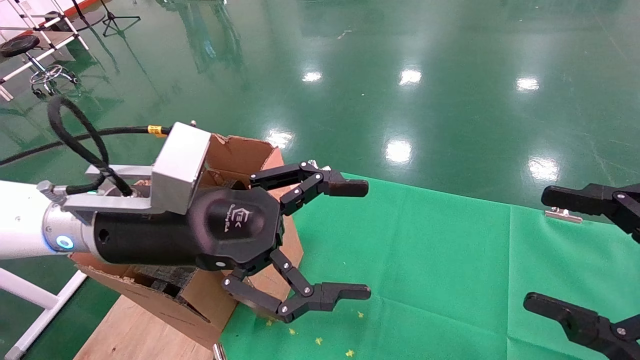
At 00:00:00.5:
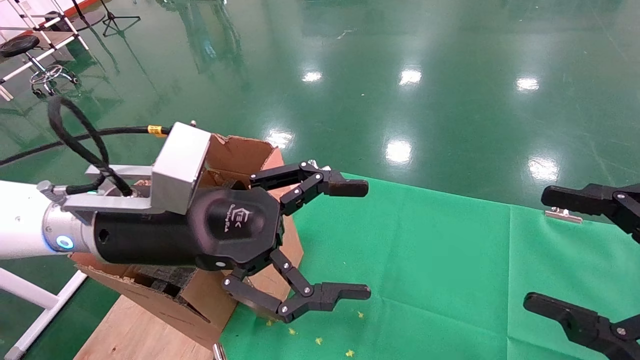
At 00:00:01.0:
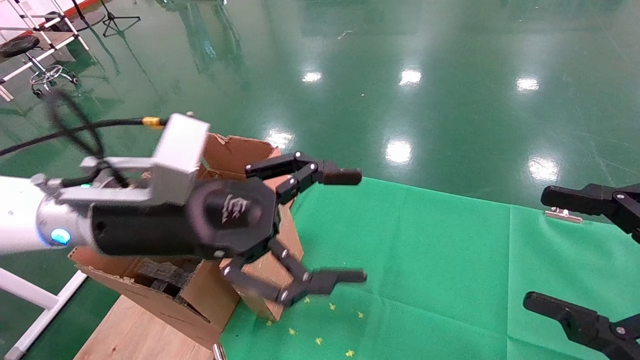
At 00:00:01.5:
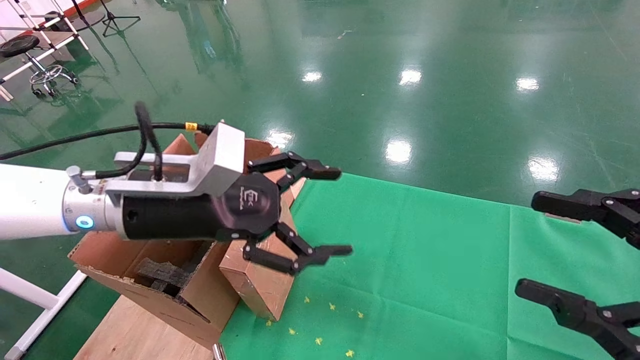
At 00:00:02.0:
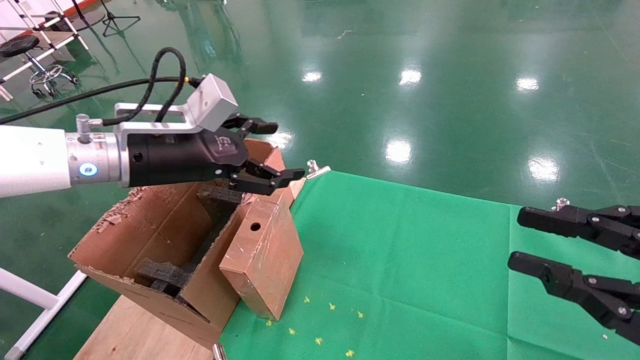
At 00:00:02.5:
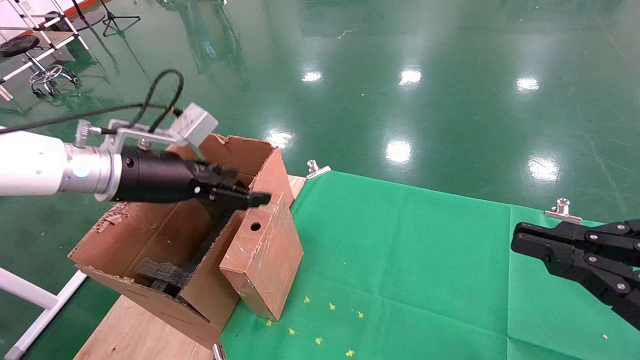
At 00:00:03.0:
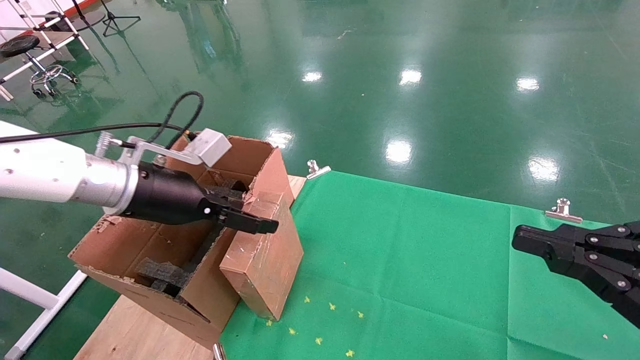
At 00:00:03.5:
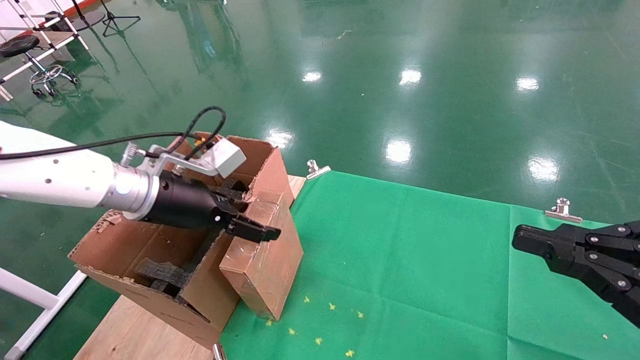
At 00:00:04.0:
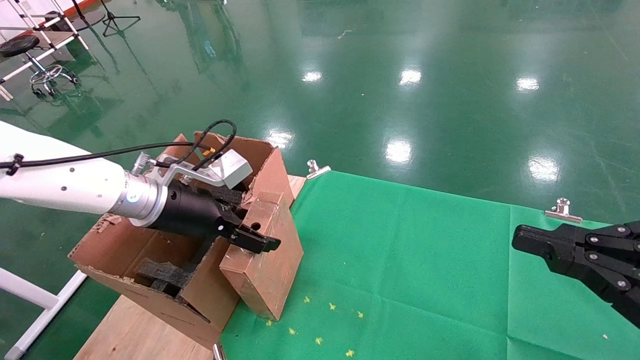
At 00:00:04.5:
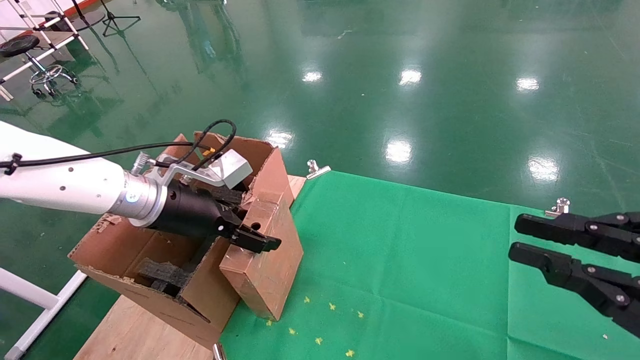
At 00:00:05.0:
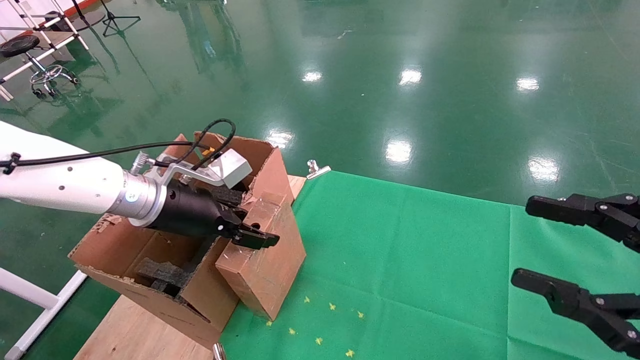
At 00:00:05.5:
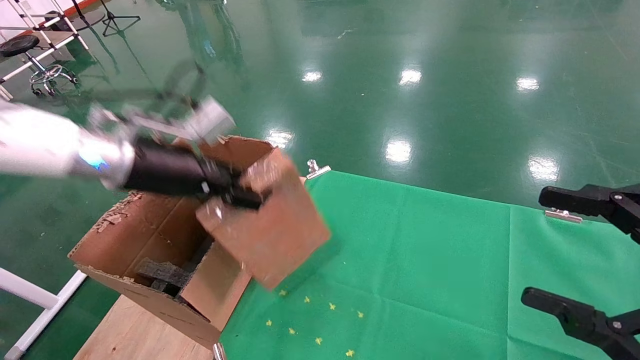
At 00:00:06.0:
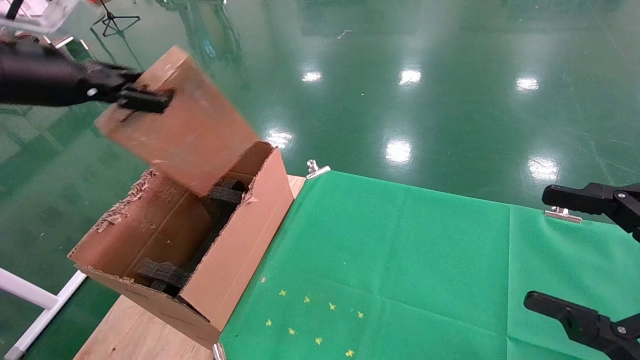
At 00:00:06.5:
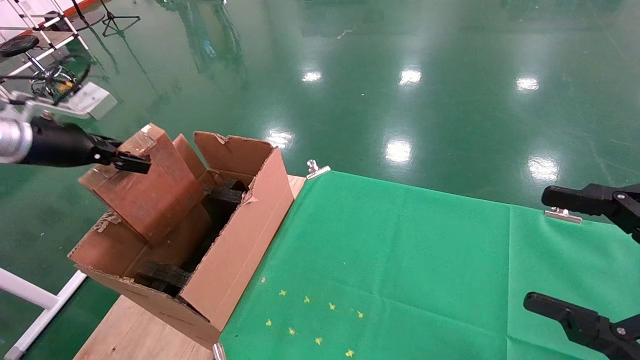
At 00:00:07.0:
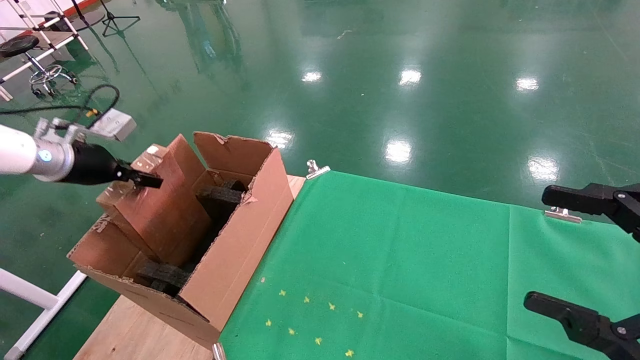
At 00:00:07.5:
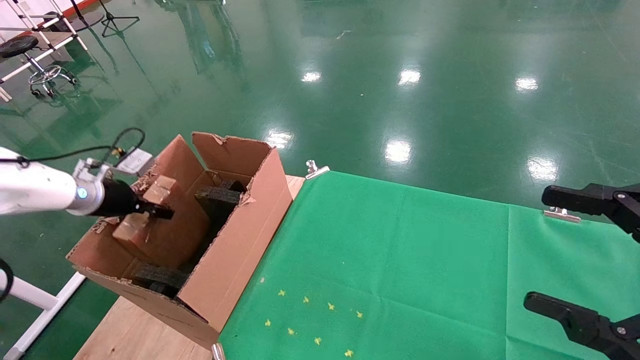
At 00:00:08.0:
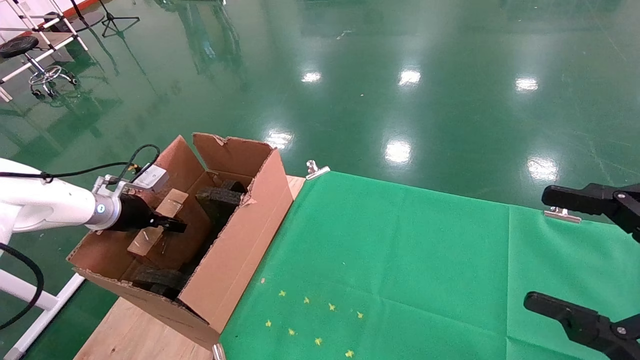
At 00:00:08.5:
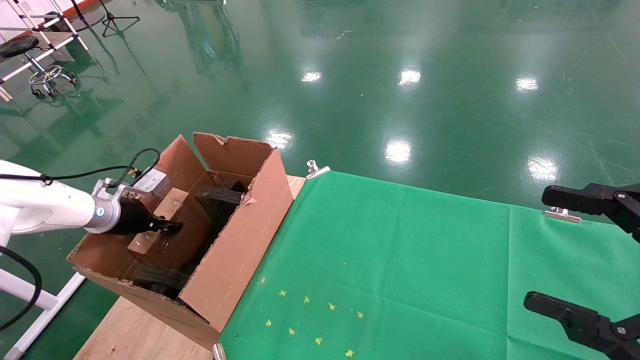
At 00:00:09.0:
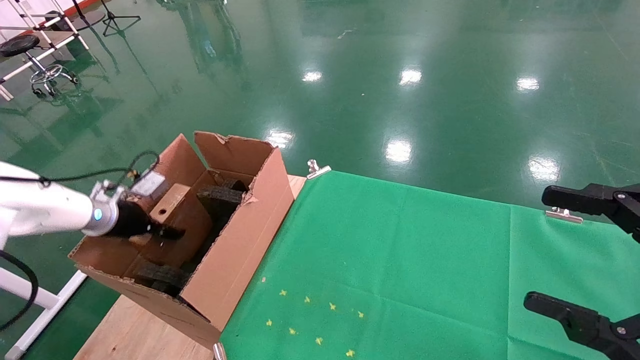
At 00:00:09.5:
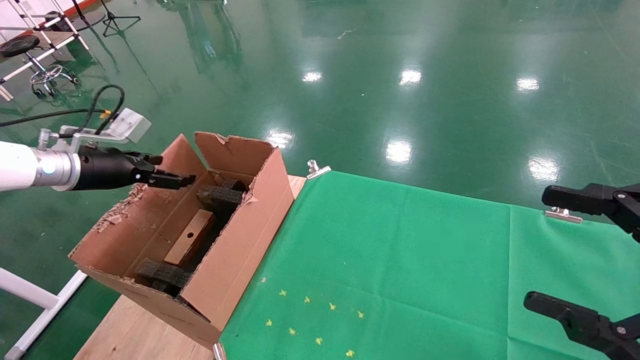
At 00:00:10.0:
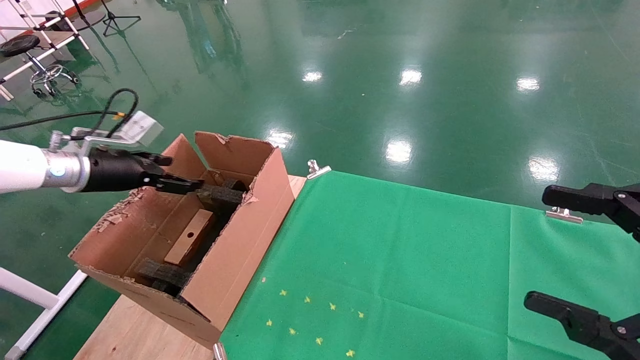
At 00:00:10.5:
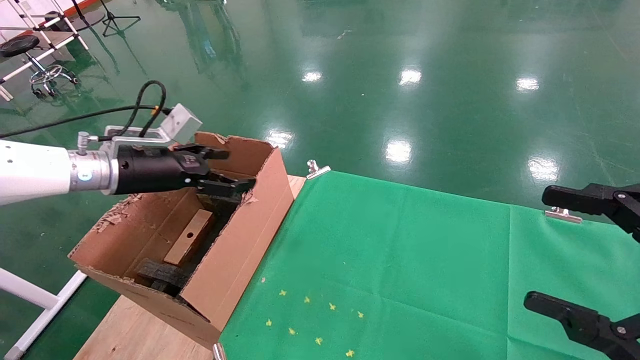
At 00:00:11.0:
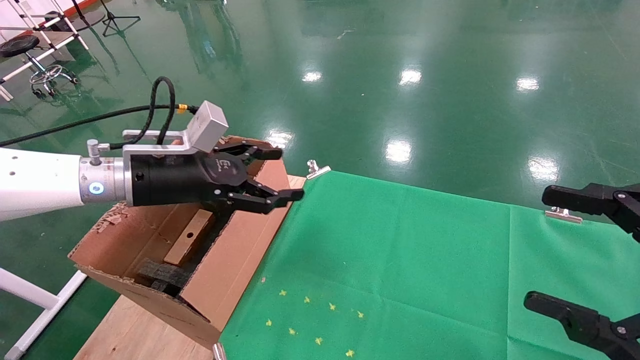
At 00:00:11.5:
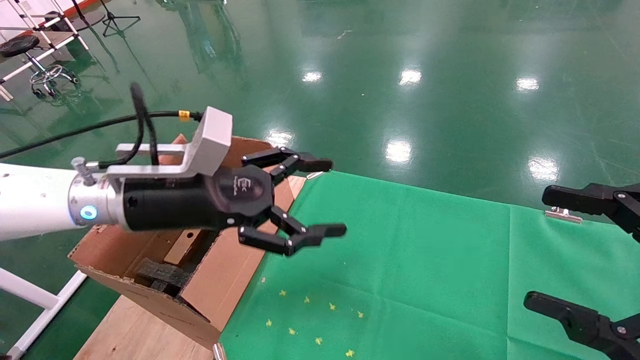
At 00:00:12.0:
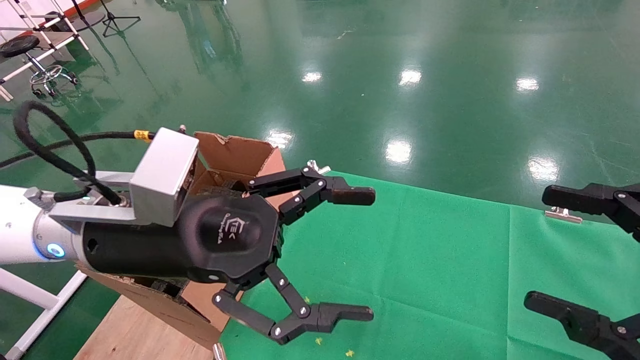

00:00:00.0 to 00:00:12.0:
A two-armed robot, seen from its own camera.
Task of the whole recording: using a robotic arm to pick up a cardboard box and palace it the carton.
Step, 00:00:01.5 to 00:00:05.0: Pick up the mouse and the power cord paper box.
Step, 00:00:05.5 to 00:00:09.5: Place the mouse and the power cord paper box into the container.
00:00:00.0 to 00:00:02.0: The right gripper closes its fingers, while the left gripper shifts roughly 10 cm forward and to the left.
00:00:02.0 to 00:00:04.0: The right gripper closes. Meanwhile the left gripper moves downward, approximately 5 cm.
00:00:04.0 to 00:00:06.0: The right gripper opens up. The left gripper travels to the left and upward by approximately 20 cm, and closes its fingers.
00:00:06.0 to 00:00:08.0: The left gripper heads downward and forward, covering about 25 cm.
00:00:08.0 to 00:00:10.0: The left gripper goes approximately 10 cm upward, and opens its fingers.
00:00:10.0 to 00:00:12.0: The left gripper goes about 25 cm to the right and backward.

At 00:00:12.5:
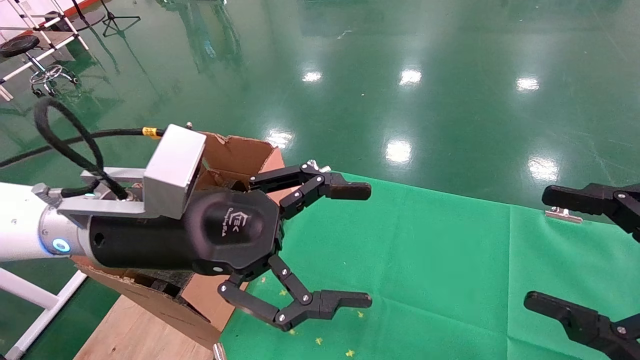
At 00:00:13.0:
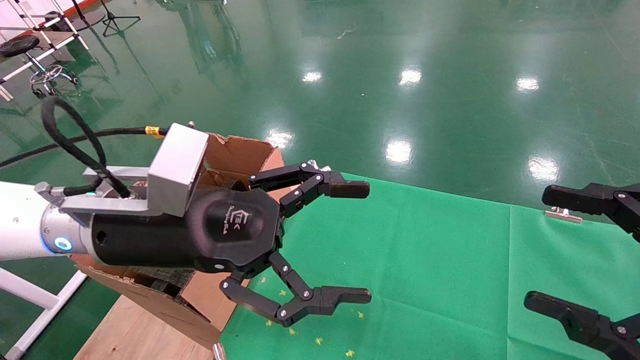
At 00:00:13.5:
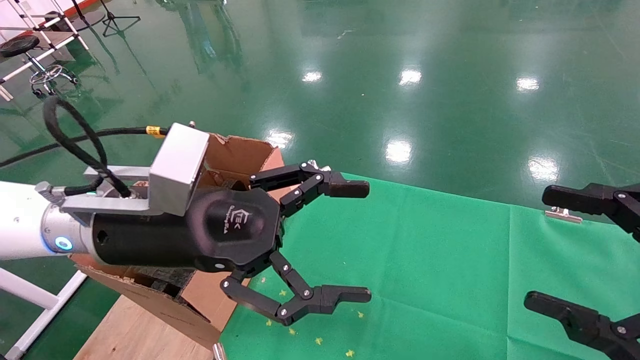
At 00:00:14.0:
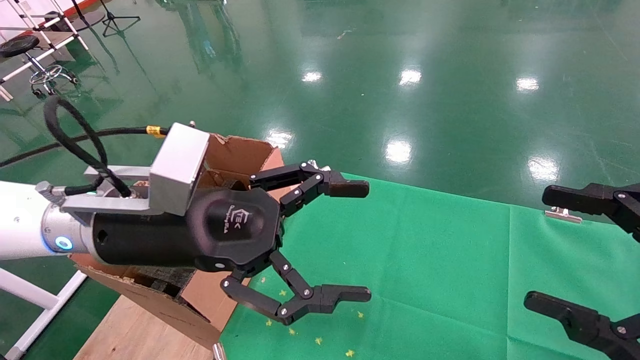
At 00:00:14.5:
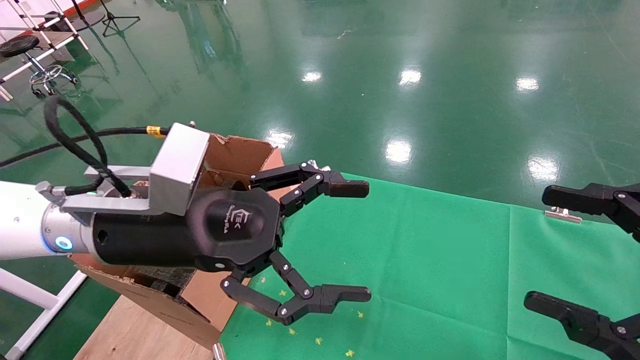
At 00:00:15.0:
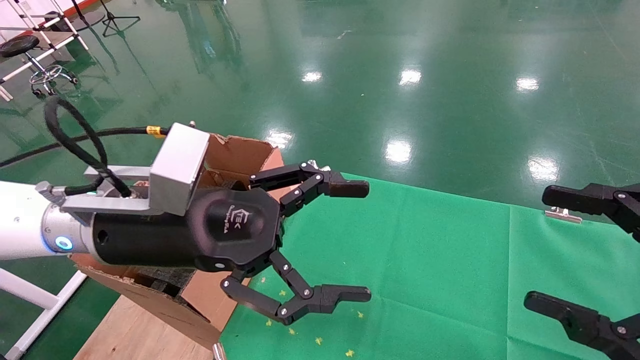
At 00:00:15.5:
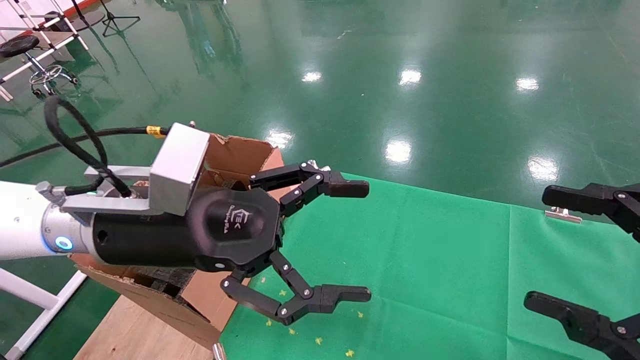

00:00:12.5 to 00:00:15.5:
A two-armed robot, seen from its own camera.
Task of the whole recording: using a robotic arm to pick up a cardboard box and palace it the carton.
00:00:12.5 to 00:00:15.5: Both grippers stay put.
